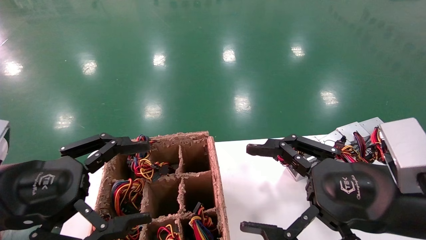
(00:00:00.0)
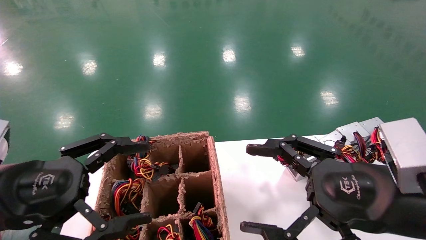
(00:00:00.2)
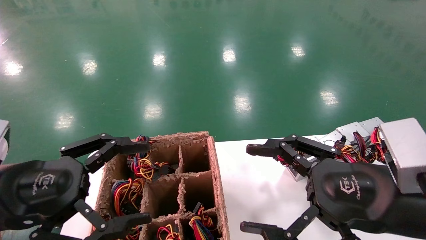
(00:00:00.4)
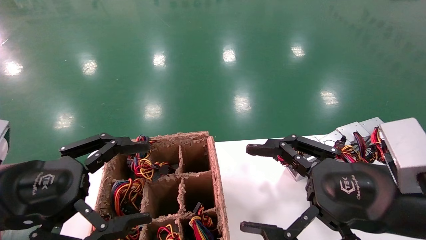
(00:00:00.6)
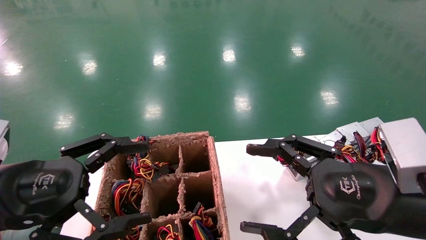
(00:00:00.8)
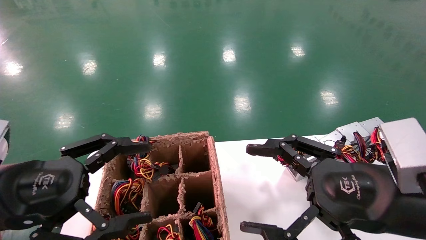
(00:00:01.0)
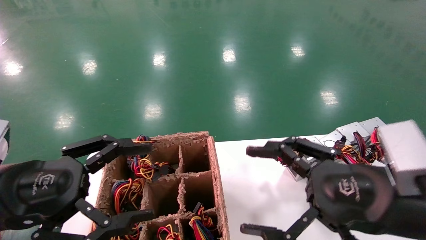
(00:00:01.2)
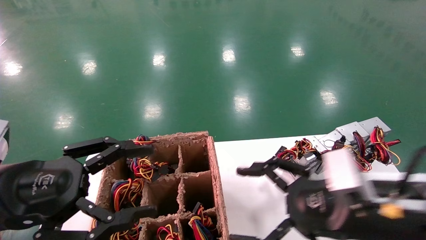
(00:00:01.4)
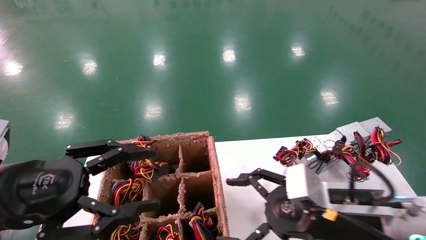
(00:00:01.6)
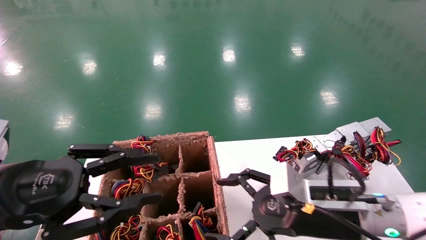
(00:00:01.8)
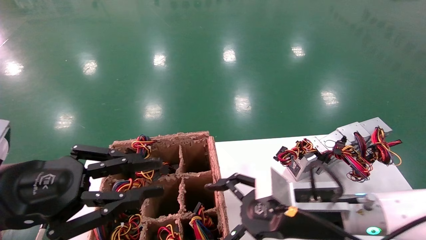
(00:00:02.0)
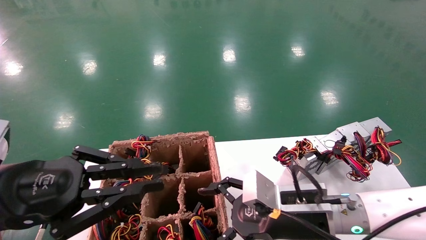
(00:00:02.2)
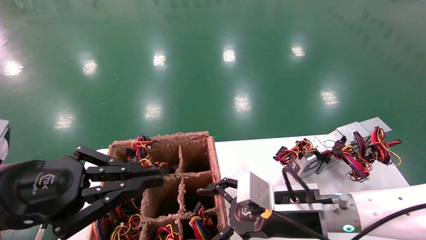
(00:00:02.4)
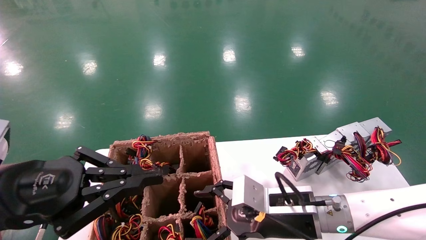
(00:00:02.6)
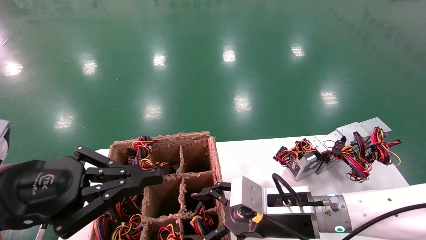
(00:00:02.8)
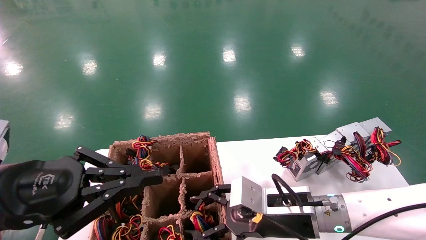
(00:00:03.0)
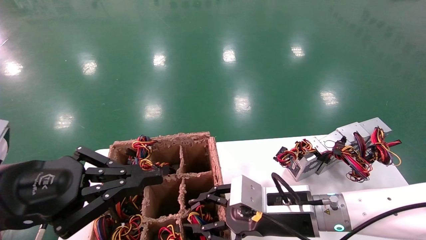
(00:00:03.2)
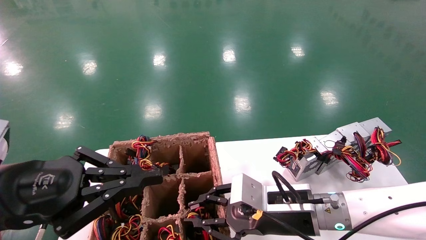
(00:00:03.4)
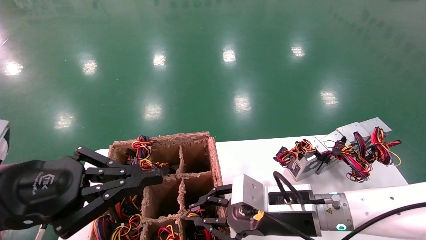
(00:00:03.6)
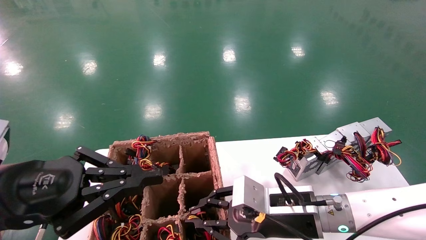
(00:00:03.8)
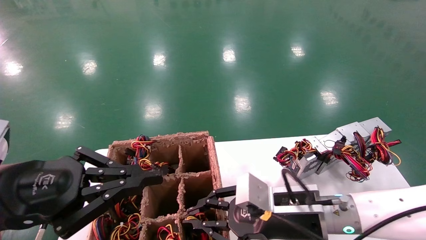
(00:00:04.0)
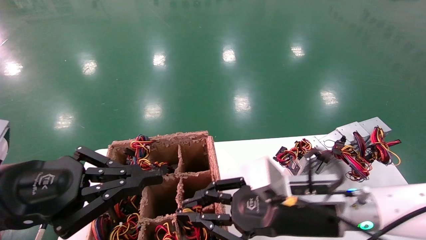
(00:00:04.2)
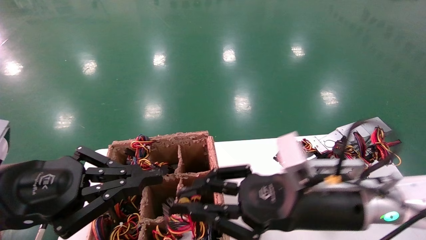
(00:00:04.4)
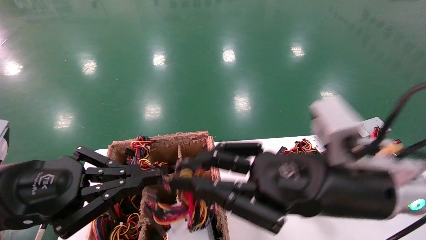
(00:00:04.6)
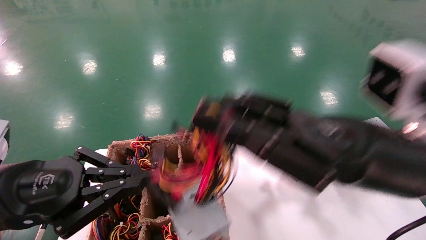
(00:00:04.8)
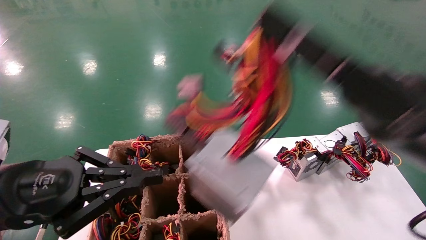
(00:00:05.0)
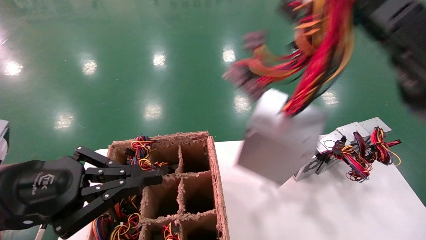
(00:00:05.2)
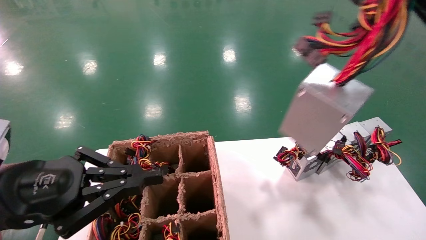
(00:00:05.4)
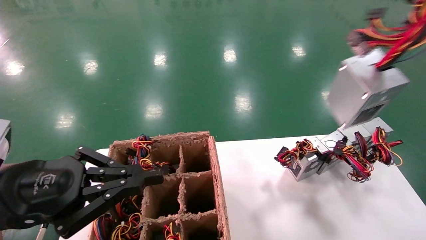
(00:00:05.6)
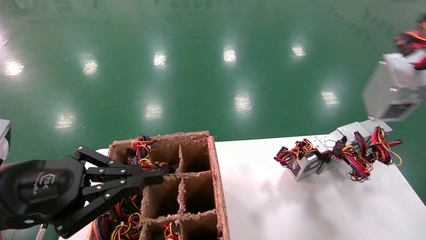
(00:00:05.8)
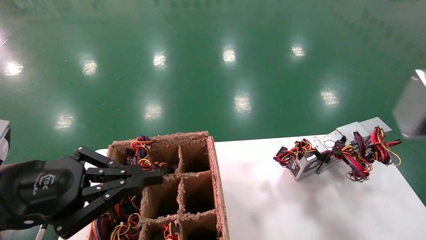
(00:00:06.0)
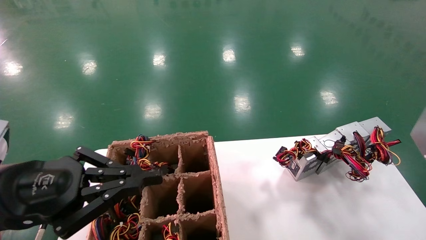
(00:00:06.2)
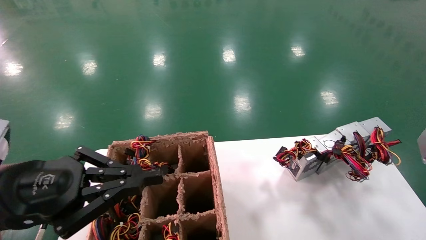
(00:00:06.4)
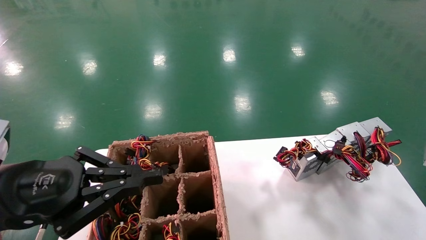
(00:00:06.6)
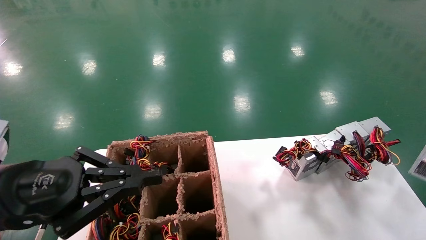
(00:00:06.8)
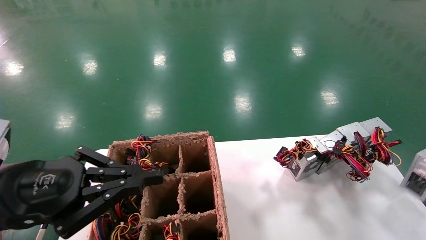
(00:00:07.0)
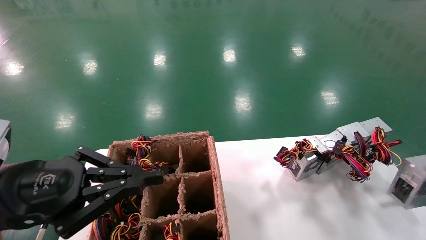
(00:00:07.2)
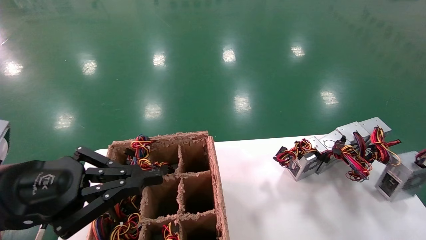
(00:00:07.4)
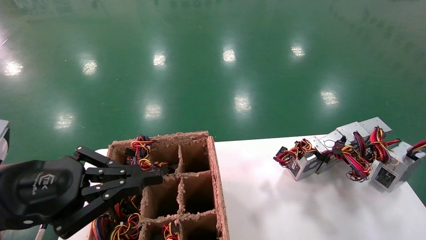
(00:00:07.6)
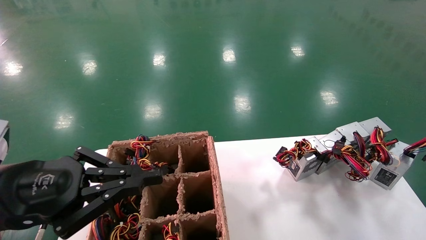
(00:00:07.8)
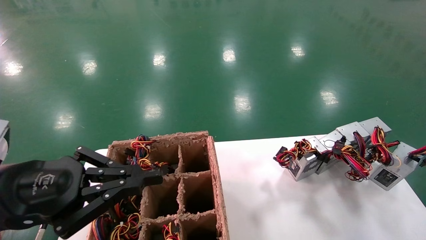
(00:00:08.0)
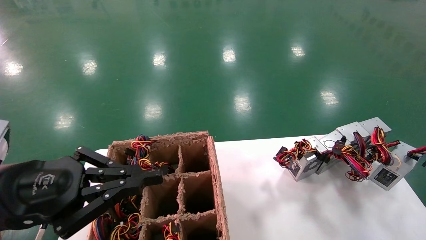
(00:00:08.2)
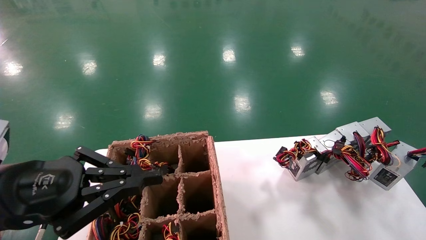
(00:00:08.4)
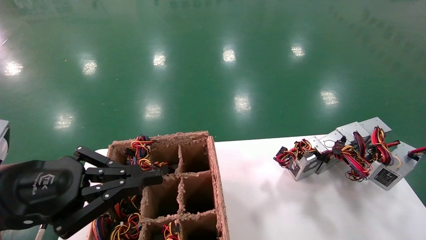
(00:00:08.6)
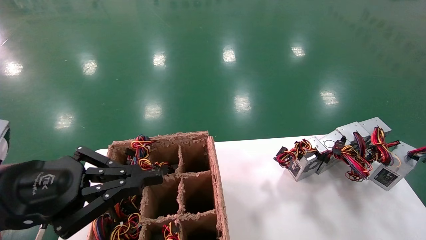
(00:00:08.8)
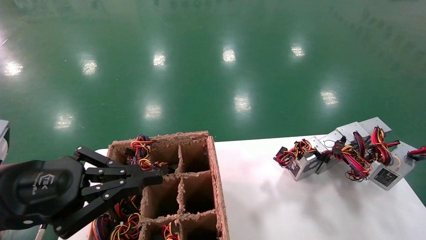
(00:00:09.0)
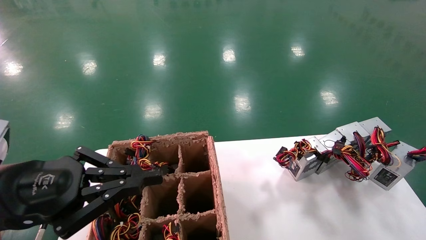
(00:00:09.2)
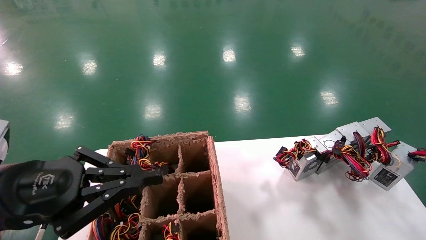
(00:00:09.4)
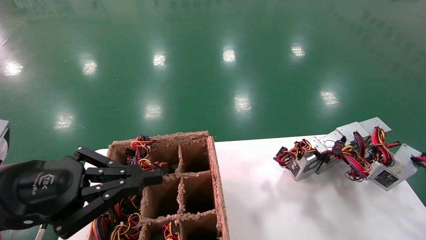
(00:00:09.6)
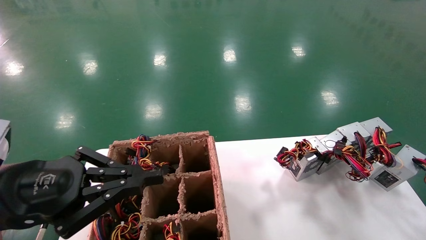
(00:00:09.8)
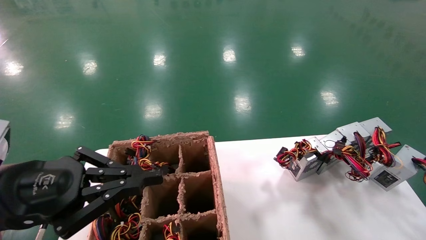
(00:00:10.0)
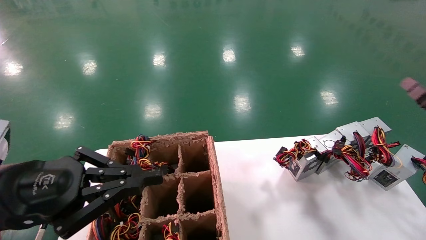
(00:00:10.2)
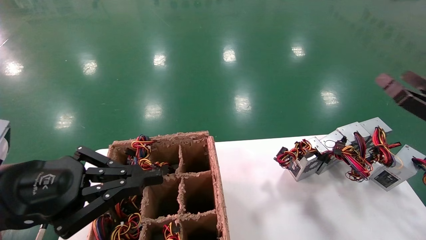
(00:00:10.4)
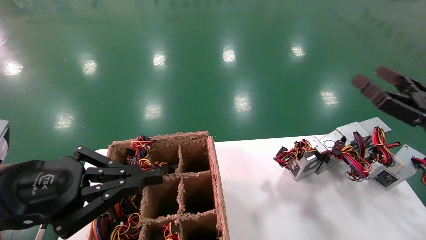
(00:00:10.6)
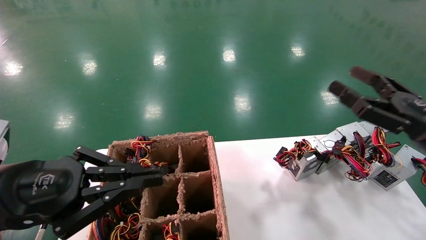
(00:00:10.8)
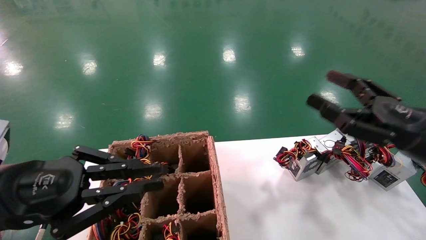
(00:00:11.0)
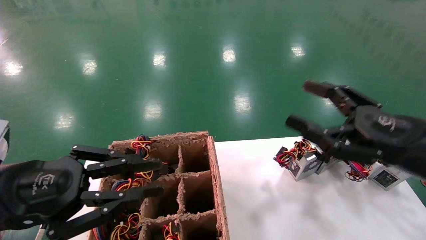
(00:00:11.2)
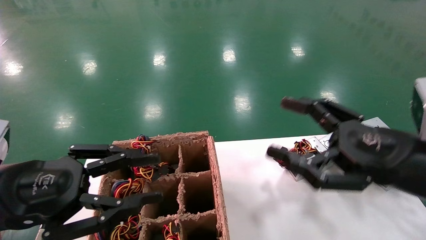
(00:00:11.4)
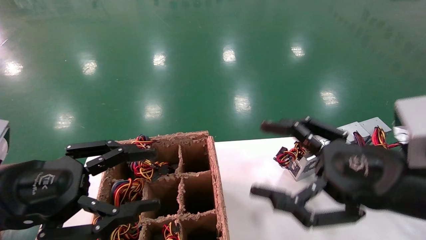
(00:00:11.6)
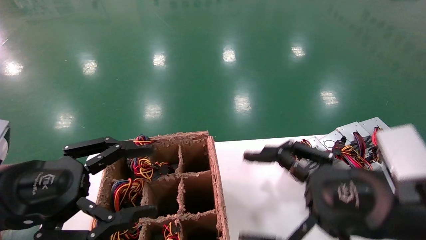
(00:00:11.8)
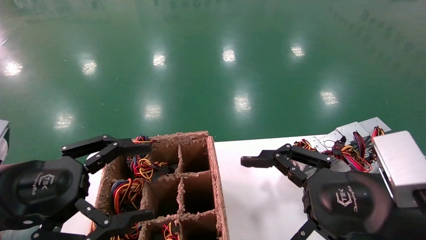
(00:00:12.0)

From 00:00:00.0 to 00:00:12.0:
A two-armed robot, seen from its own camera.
Step, from 00:00:01.6 to 00:00:03.6: Grab the main unit power supply from the containment box.
Step, from 00:00:03.8 to 00:00:10.4: Place the main unit power supply in the designated area.
From 00:00:00.0 to 00:00:01.6: The right gripper travels downward and forward by approximately 10 cm.
From 00:00:01.6 to 00:00:03.0: The right gripper shifts about 5 cm to the left, and closes up, while the left gripper closes its fingers.
From 00:00:03.0 to 00:00:04.4: The right gripper travels upward by roughly 10 cm, and closes.
From 00:00:04.4 to 00:00:06.0: The right gripper is displaced to the right by some 35 cm.
From 00:00:06.0 to 00:00:07.6: The right gripper goes roughly 15 cm downward and forward.
From 00:00:07.6 to 00:00:09.0: The grippers move only a little.
From 00:00:09.0 to 00:00:10.4: The right gripper shifts some 15 cm to the left and upward, and opens up.
From 00:00:10.4 to 00:00:12.0: The left gripper opens. Meanwhile the right gripper travels to the left and backward by about 20 cm.

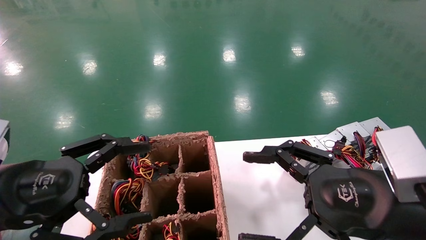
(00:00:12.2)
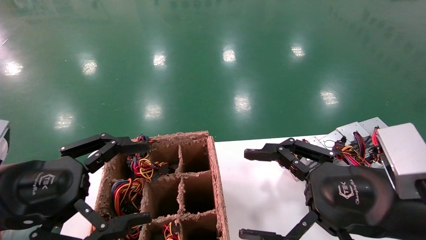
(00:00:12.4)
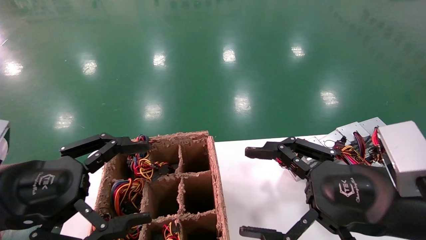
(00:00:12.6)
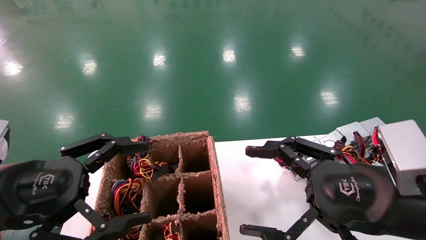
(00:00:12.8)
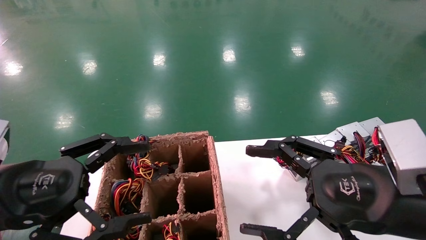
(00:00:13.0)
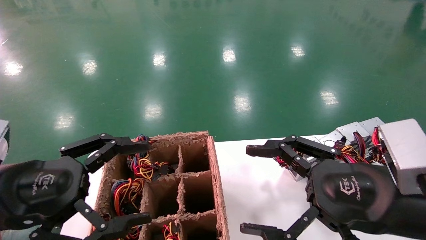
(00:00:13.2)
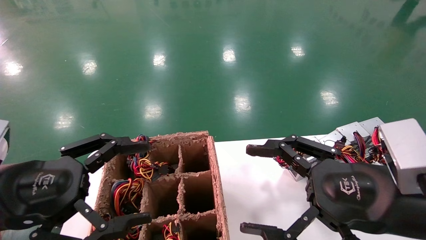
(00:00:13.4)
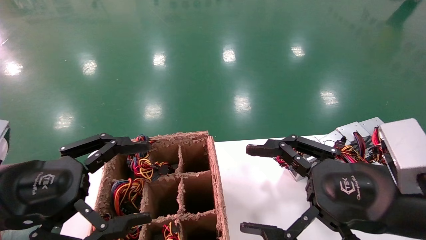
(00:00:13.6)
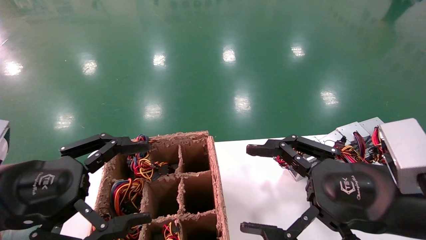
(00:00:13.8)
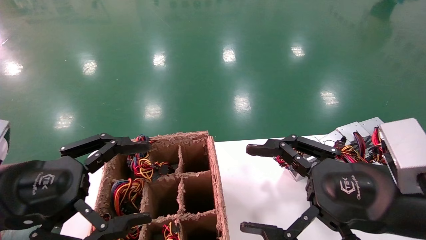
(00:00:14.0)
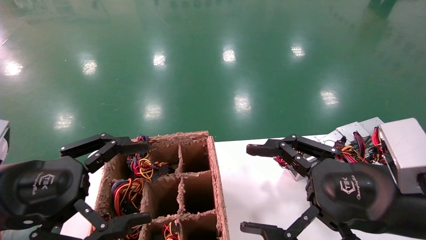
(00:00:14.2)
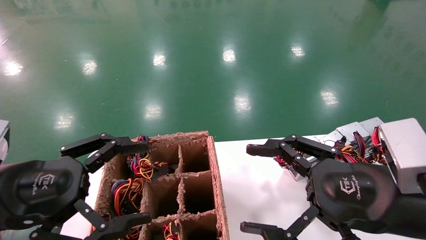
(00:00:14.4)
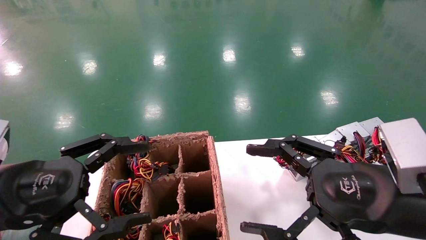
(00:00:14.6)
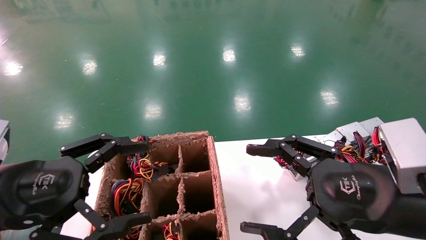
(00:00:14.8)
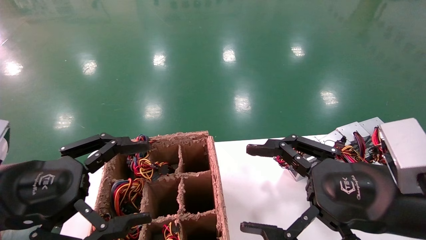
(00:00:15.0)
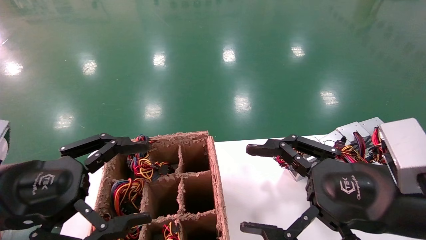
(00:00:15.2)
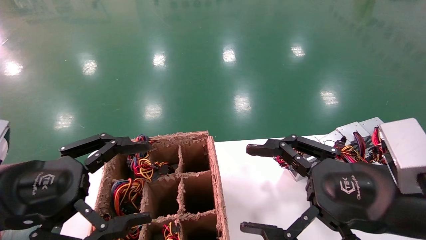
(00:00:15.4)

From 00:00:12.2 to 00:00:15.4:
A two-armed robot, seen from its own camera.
From 00:00:12.2 to 00:00:15.4: Neither gripper changes place.
